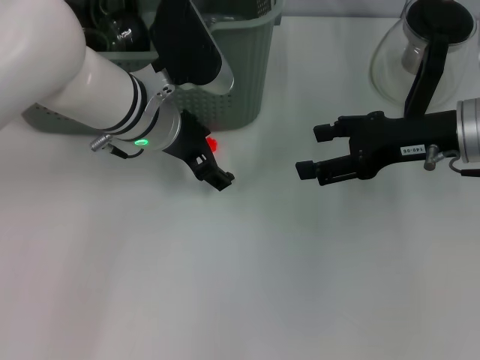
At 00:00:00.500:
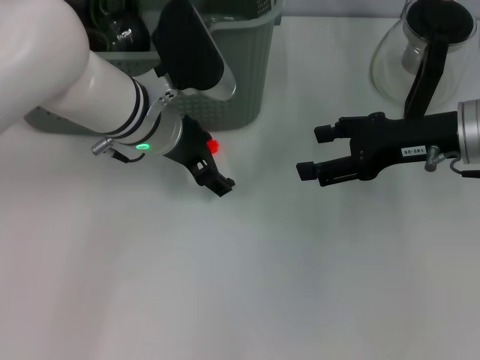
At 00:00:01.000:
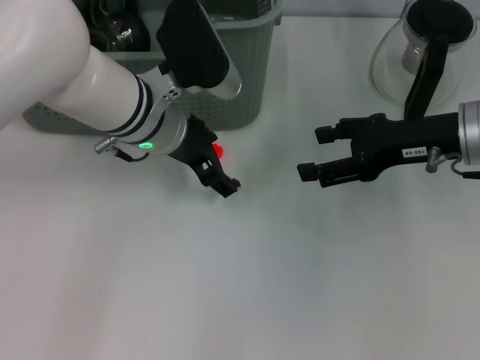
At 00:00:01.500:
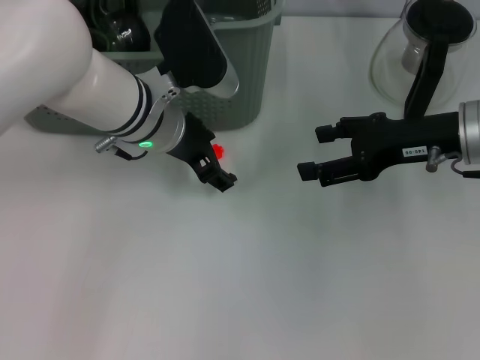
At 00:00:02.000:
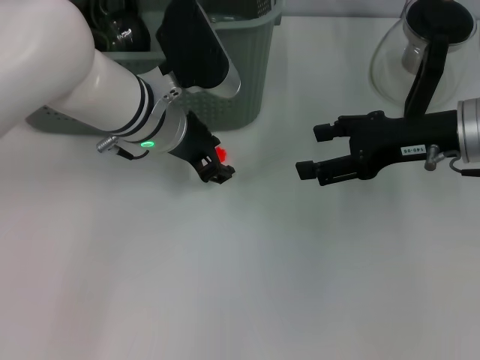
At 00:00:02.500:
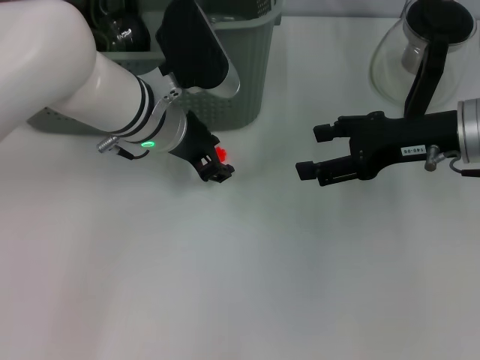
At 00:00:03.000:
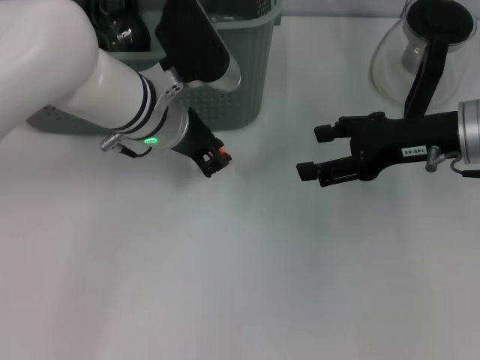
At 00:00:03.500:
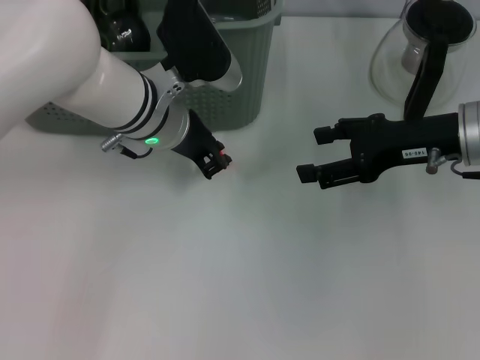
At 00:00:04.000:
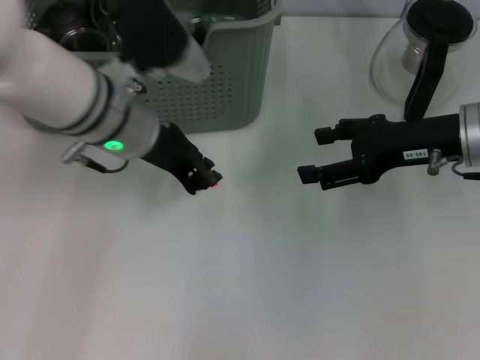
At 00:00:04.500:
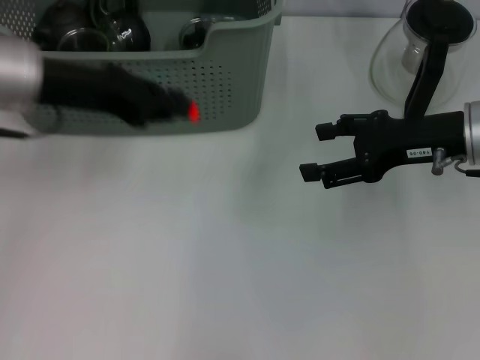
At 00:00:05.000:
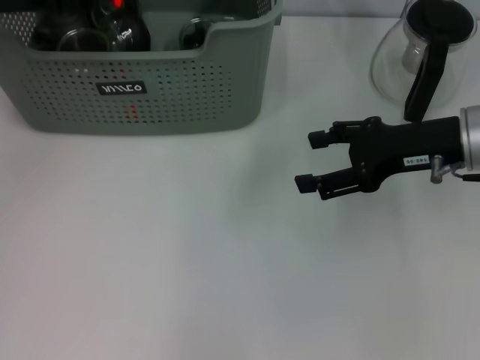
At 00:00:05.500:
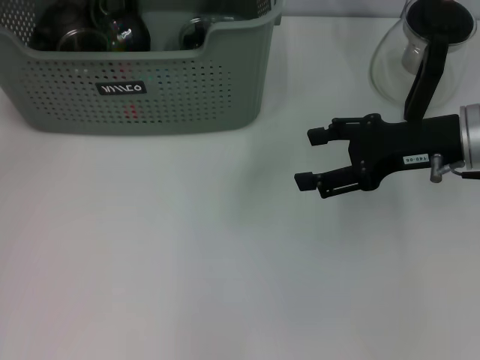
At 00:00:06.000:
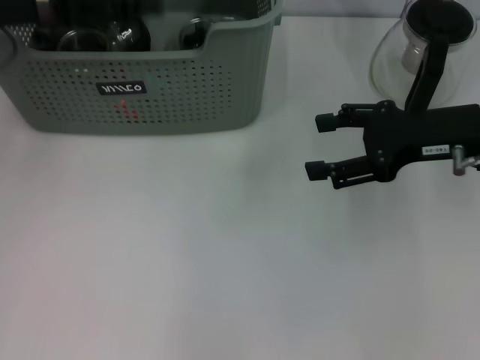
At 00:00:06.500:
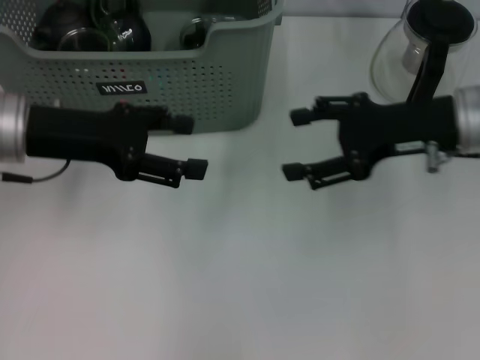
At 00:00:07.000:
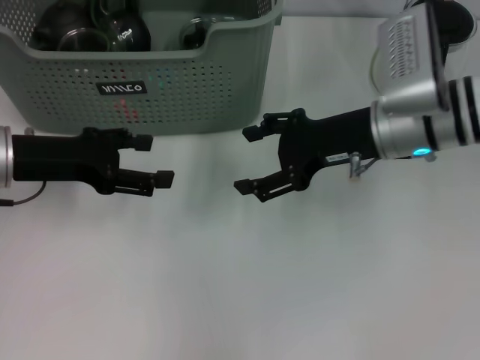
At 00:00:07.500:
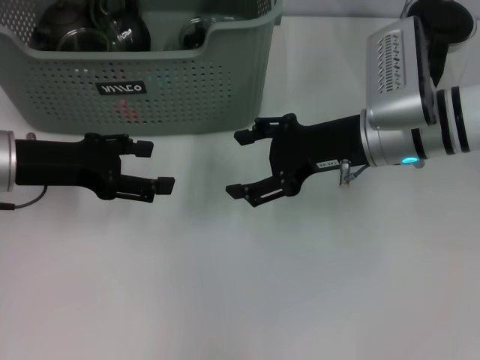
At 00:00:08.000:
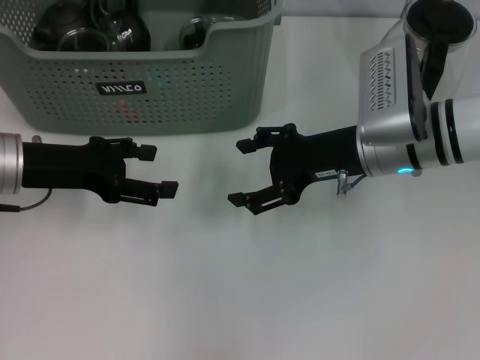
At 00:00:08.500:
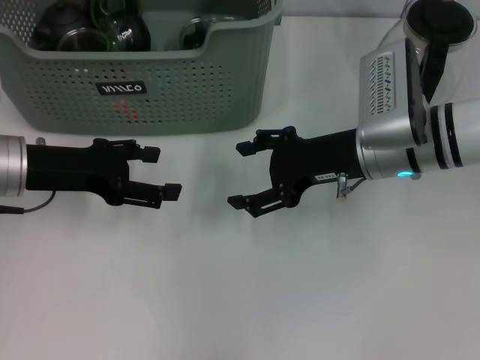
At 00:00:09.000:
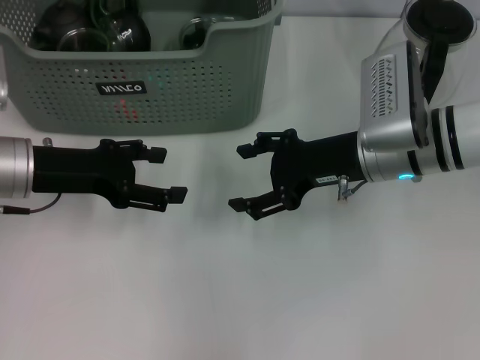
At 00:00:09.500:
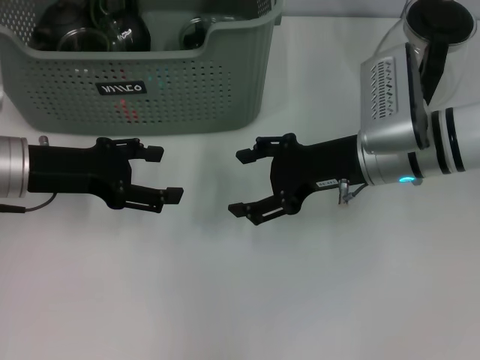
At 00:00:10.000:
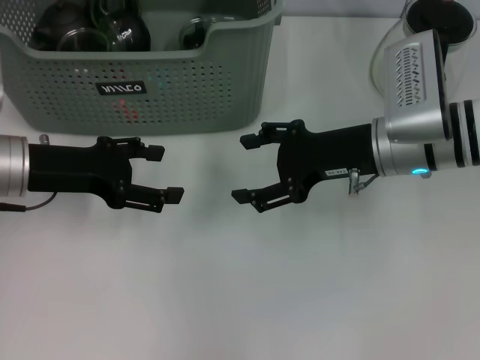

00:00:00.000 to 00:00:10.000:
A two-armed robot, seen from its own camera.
Task of the whole recording: pick up the teacup on the table and place it into the storage bin, pick up the block on the table and place it into the storage bin.
Step, 00:00:00.000 to 00:00:03.500: Grasp the orange block with left gripper.
Step, 00:00:04.000 to 00:00:05.500: Place the orange block in the storage box with left gripper.
00:00:00.000 to 00:00:02.000: The left gripper closes its fingers.
00:00:02.000 to 00:00:04.000: The left gripper closes.
00:00:04.000 to 00:00:06.000: The left gripper goes about 15 cm to the left and upward, and opens up.
00:00:06.000 to 00:00:08.000: The left gripper shifts roughly 10 cm downward. The right gripper heads to the left, covering about 10 cm.
00:00:08.000 to 00:00:10.000: There are only small adjustments of the grippers.
